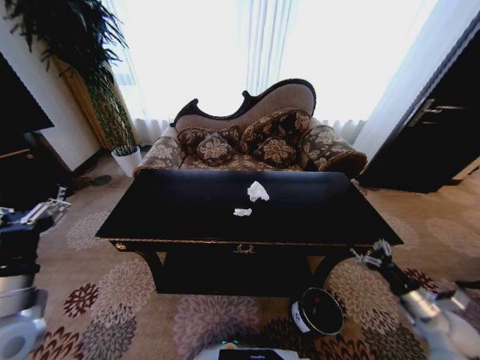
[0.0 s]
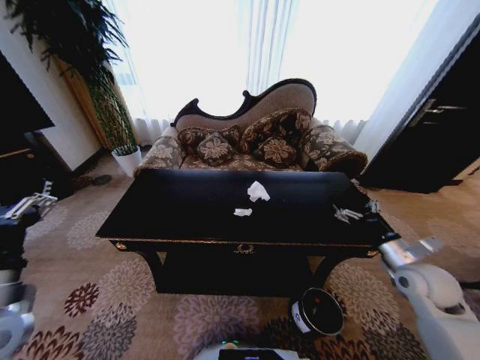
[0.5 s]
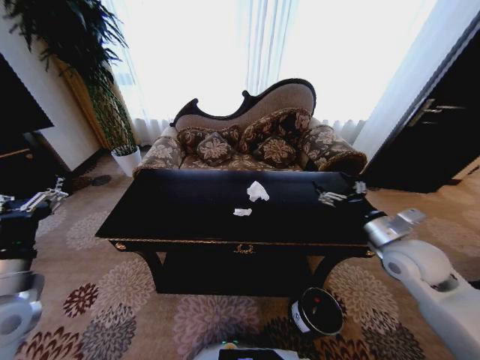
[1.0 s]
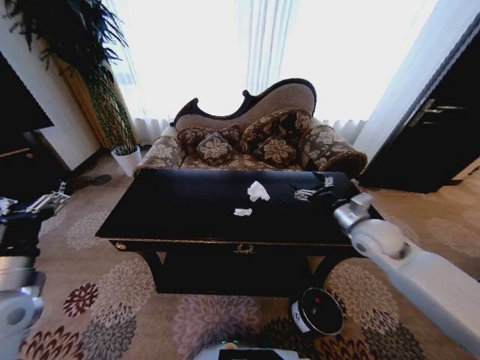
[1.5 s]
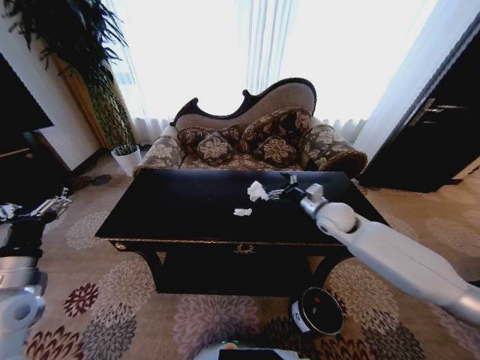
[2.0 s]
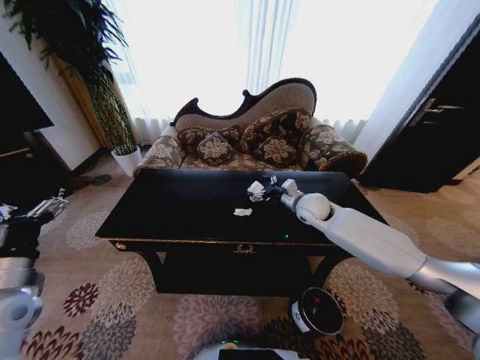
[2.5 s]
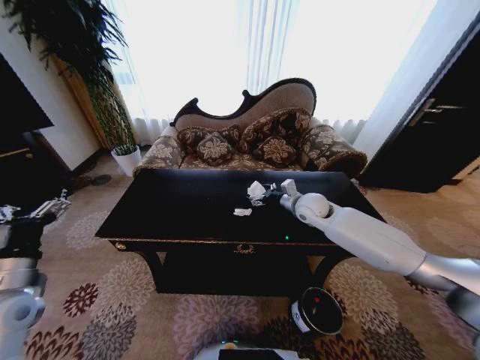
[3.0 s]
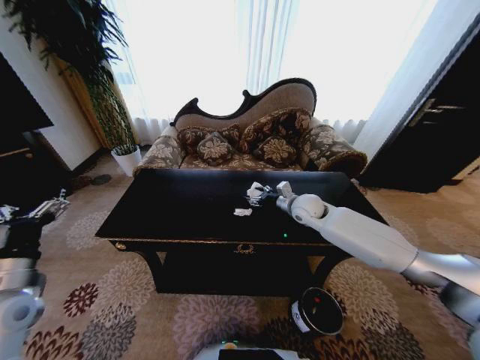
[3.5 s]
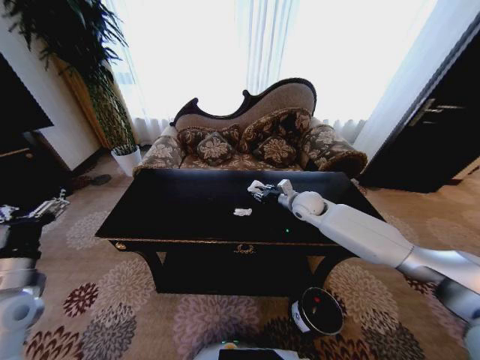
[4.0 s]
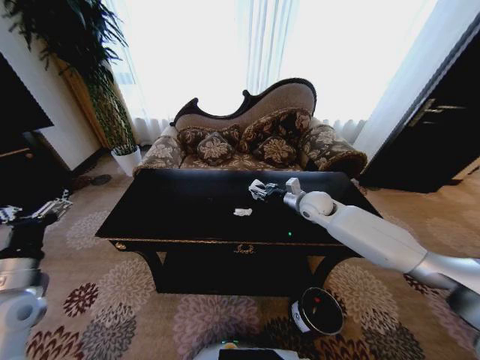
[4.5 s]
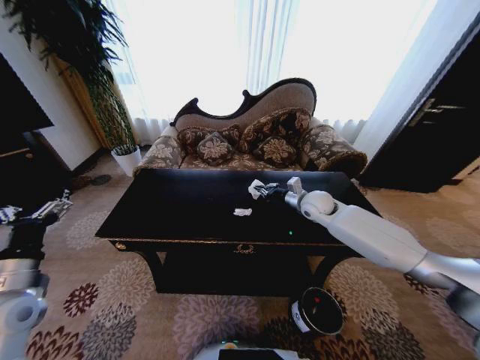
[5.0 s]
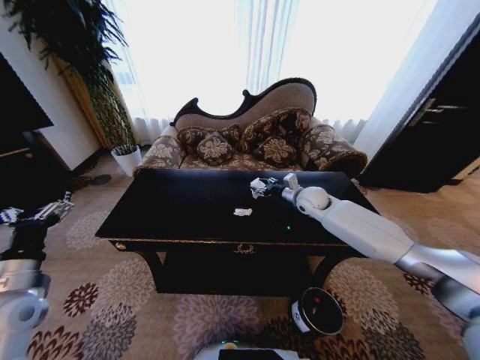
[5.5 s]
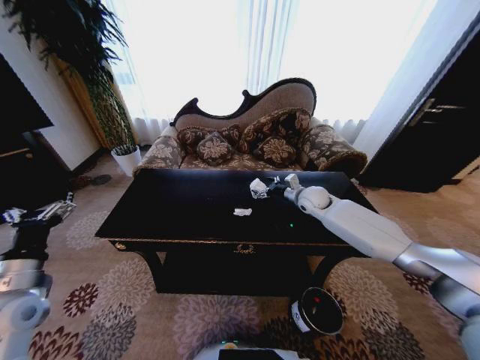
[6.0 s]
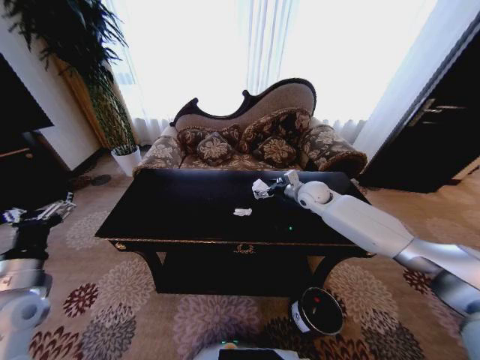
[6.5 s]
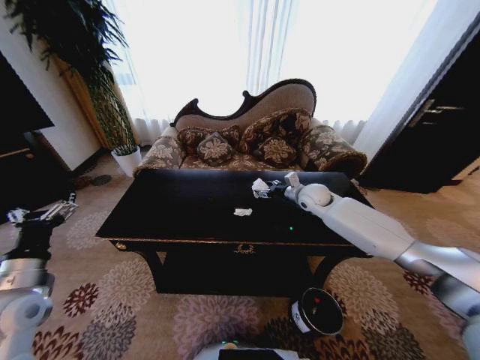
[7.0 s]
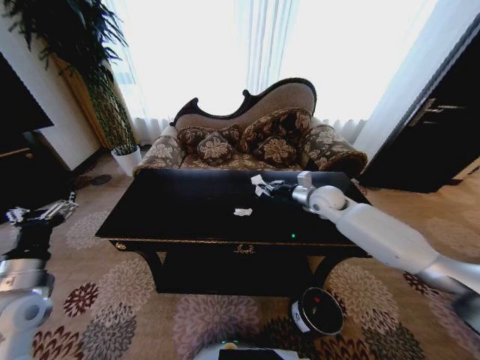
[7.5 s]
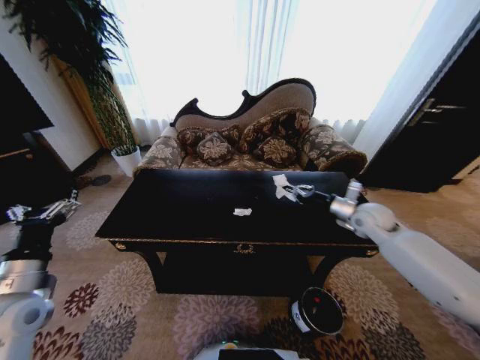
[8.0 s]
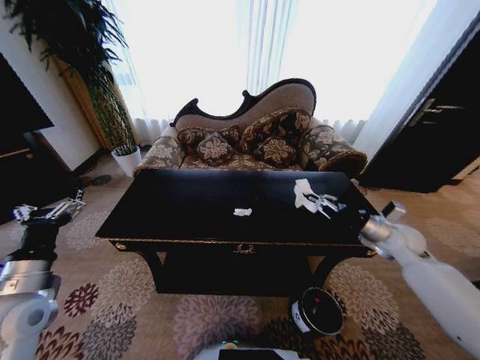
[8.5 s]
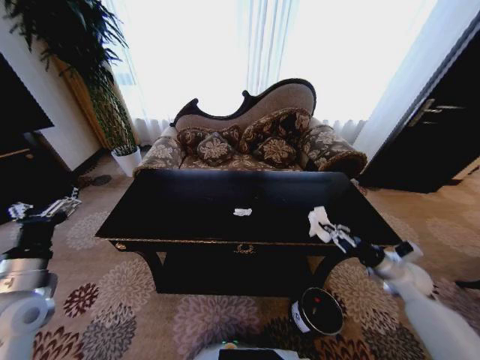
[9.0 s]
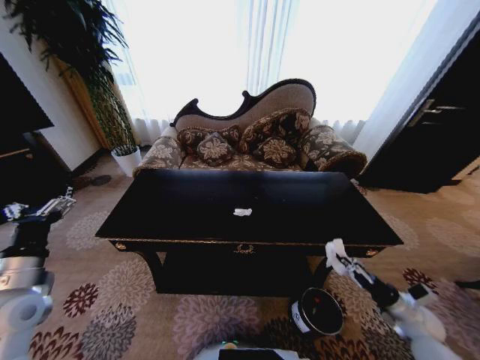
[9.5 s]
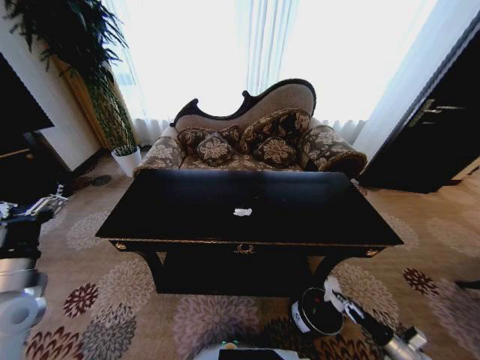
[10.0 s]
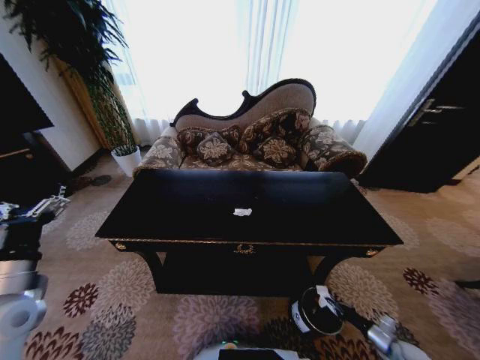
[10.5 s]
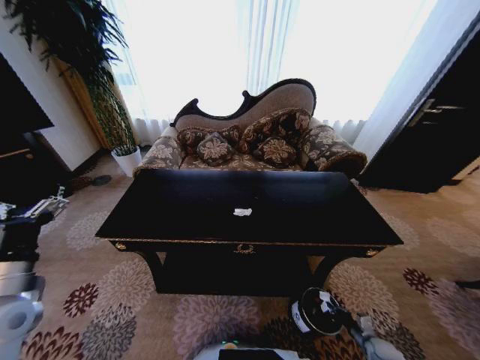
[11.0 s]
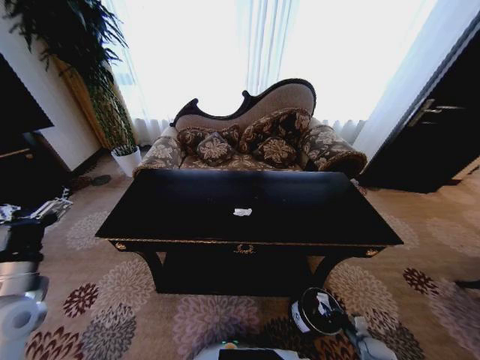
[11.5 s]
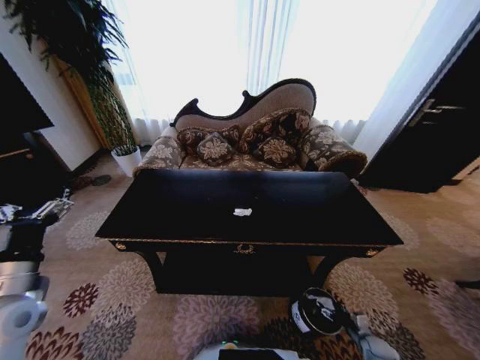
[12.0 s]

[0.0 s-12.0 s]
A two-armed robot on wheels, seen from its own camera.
Task of the whole recording: Move to the front of the table and place the trash on the table into the trash bin.
0.0 to 2.0 s: The left gripper goes approximately 5 cm to the left; the right gripper is displaced forward, to the left and upward by about 35 cm.
2.0 to 4.0 s: The right gripper heads forward, covering about 5 cm, and closes.
4.0 to 6.0 s: The right gripper opens up.
6.0 to 8.0 s: The right gripper shifts about 15 cm to the right and backward, and closes its fingers.
8.0 to 10.0 s: The right gripper is displaced downward, backward and to the right by approximately 50 cm.
10.0 to 12.0 s: The right gripper moves downward and to the left, roughly 10 cm, and opens its fingers.

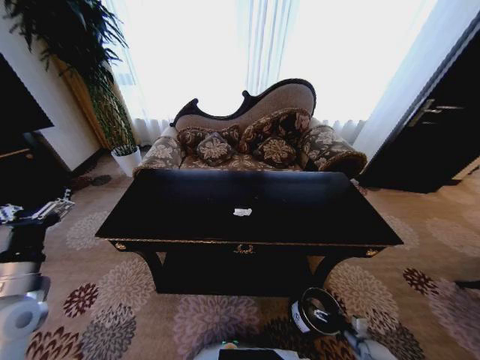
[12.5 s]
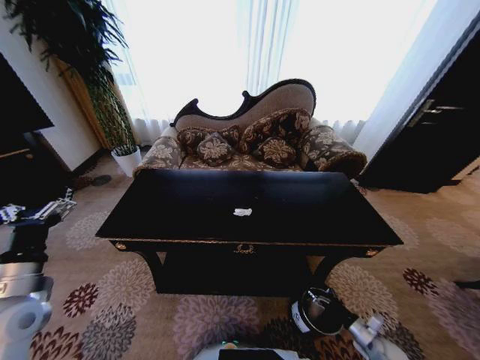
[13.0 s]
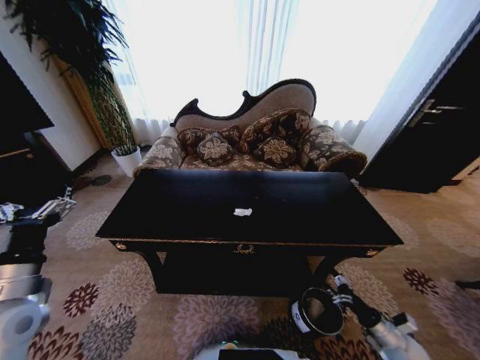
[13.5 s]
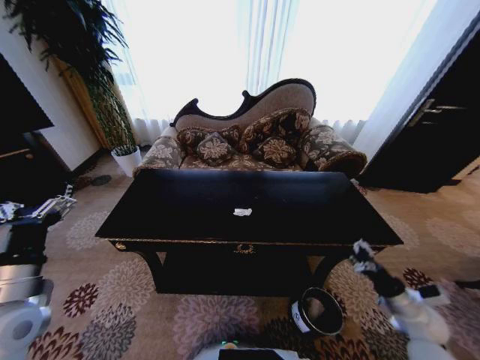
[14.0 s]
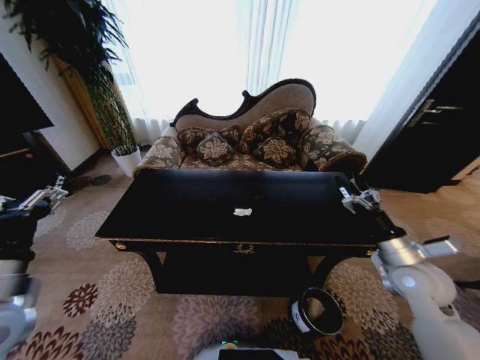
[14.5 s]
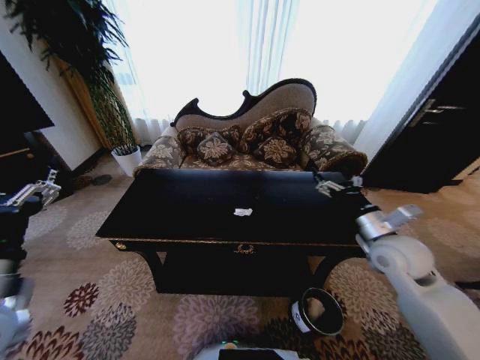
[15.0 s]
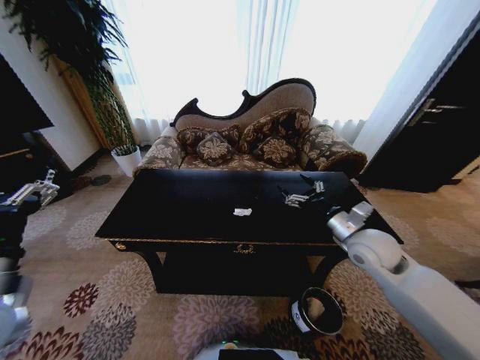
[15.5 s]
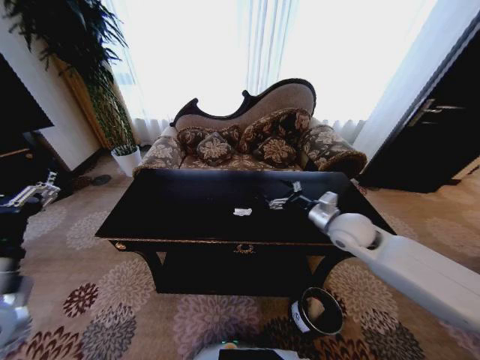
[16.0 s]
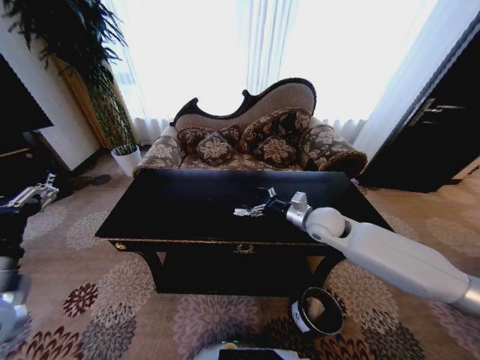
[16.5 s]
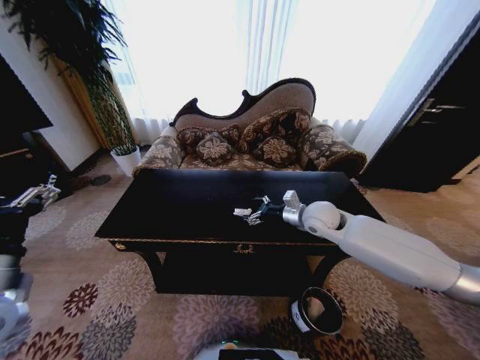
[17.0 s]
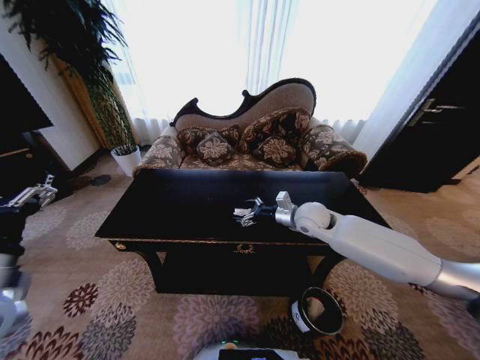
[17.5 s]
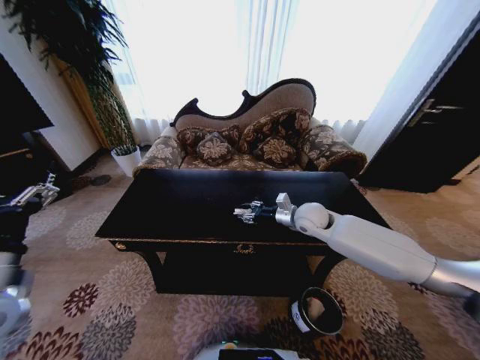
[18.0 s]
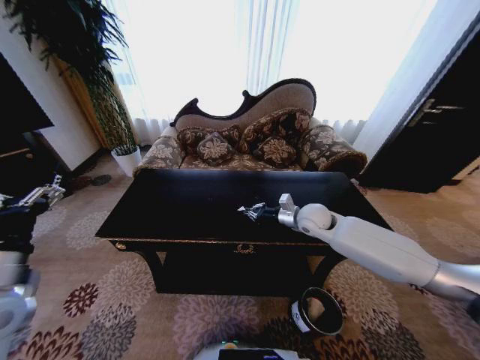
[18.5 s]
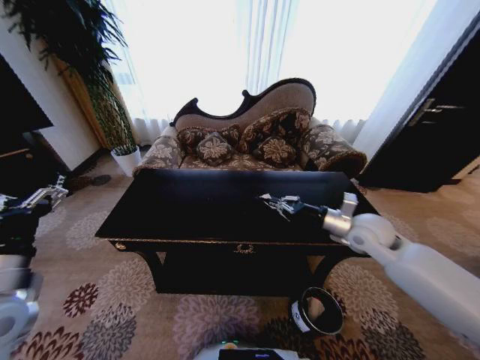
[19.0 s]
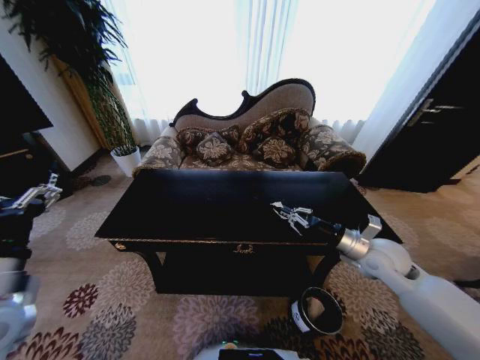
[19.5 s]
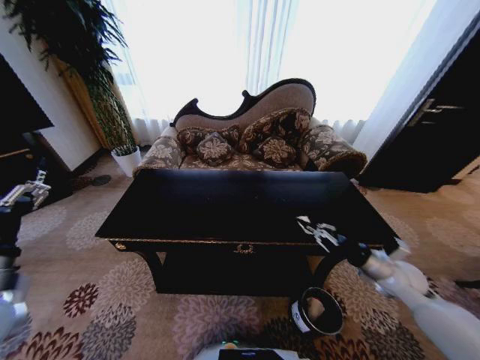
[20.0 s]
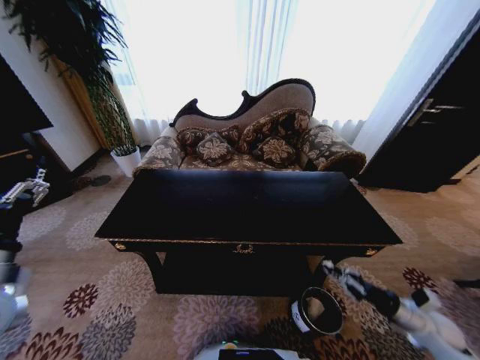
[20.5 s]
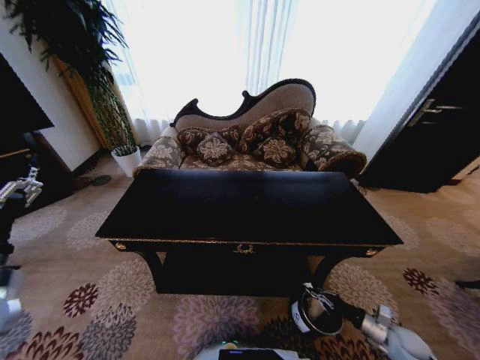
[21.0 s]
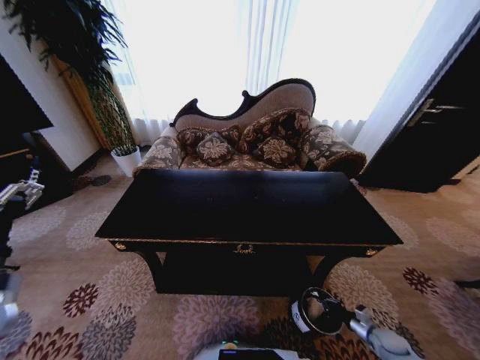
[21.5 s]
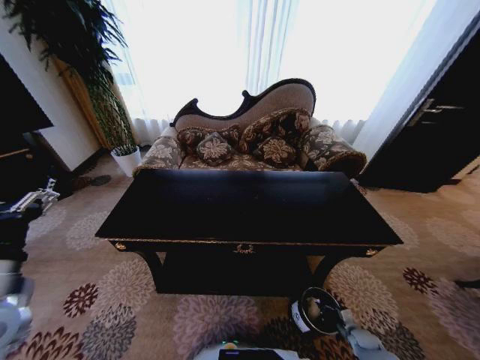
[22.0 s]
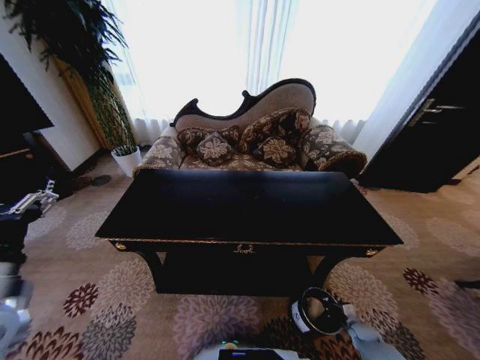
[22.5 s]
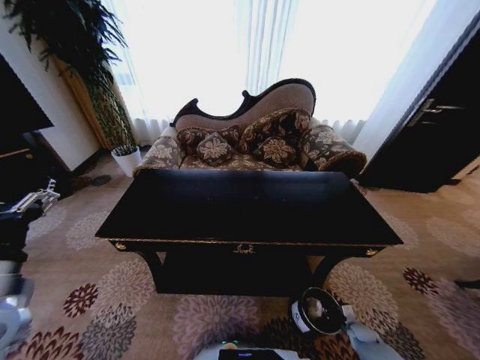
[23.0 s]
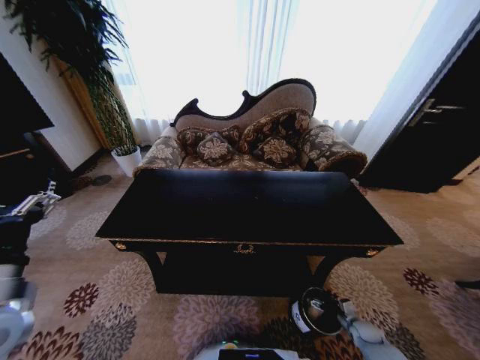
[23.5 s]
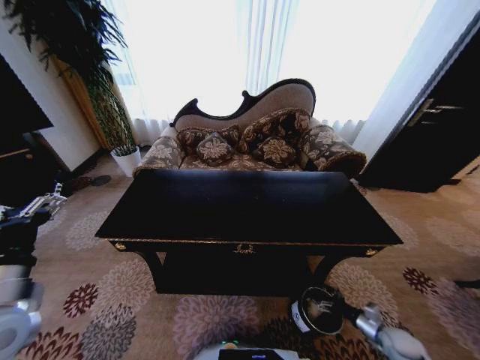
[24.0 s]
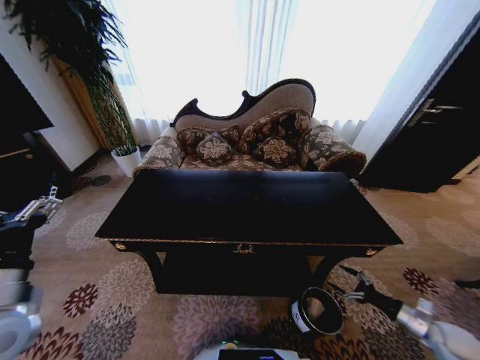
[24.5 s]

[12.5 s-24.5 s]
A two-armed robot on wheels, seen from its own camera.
Task of the whole recording: Move to the front of the table and place the trash on the table into the trash bin.
12.5 to 14.5 s: The right gripper heads upward, covering roughly 40 cm. Meanwhile the left gripper moves upward, about 5 cm.
14.5 to 16.5 s: The right gripper travels forward and to the left by about 20 cm.
16.5 to 18.5 s: The right gripper closes up.
18.5 to 20.5 s: The right gripper moves to the right, backward and downward, some 40 cm.
20.5 to 22.5 s: The right gripper moves downward, some 25 cm.
22.5 to 24.5 s: The right gripper heads upward, covering some 20 cm, and opens its fingers.

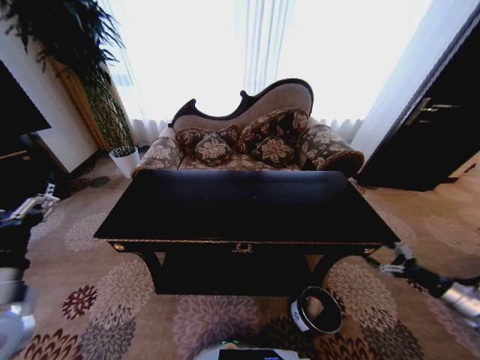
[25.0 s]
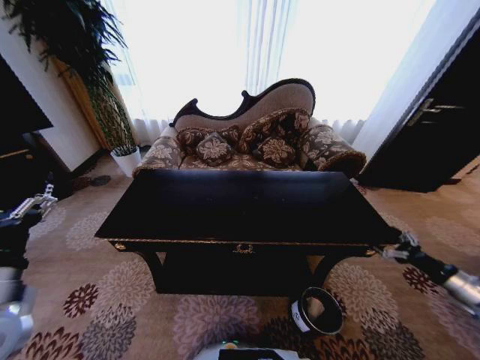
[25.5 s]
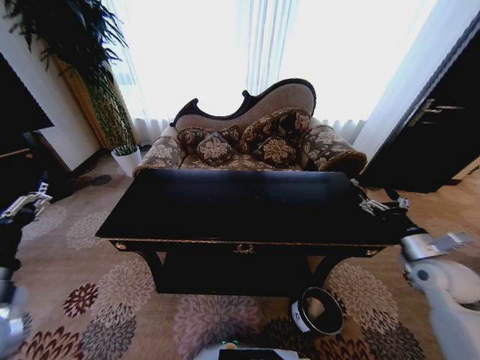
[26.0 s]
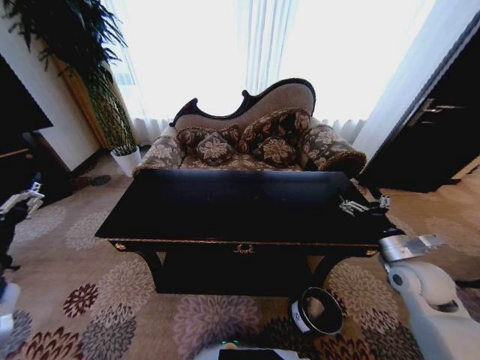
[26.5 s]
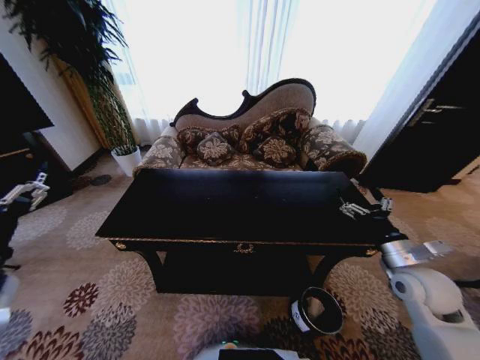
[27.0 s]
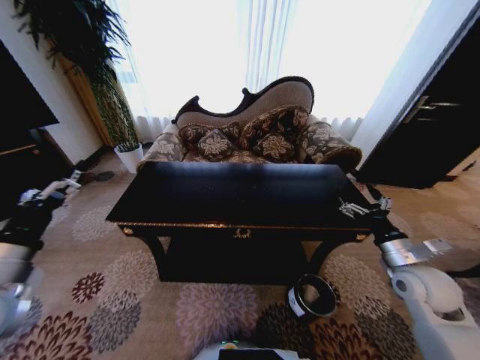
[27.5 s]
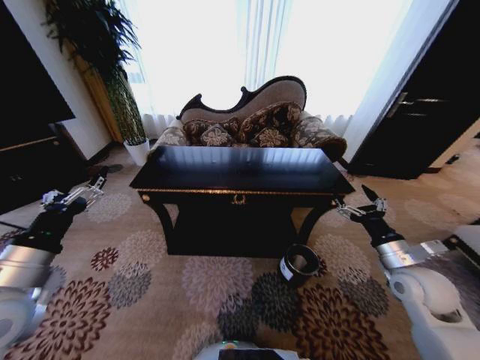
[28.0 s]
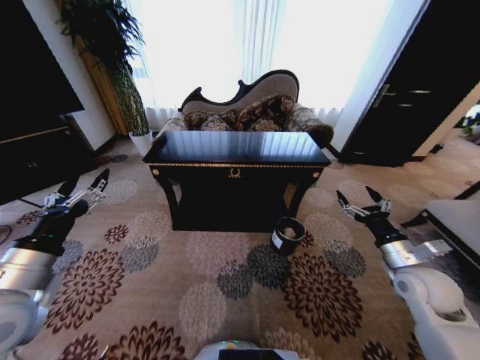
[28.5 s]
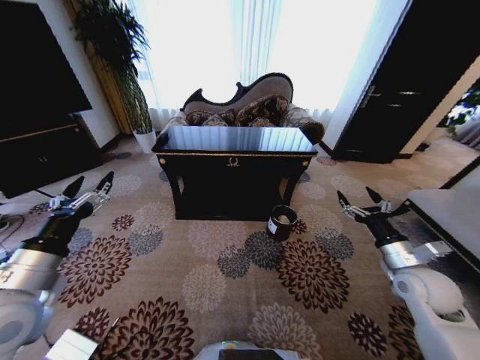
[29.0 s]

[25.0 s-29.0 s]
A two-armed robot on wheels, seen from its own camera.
Task of the whole recording: Move to the front of the table and place the trash on the table into the trash bin.
25.0 to 27.0 s: The right gripper is displaced to the left by roughly 25 cm.
27.0 to 29.0 s: The left gripper moves approximately 5 cm.
